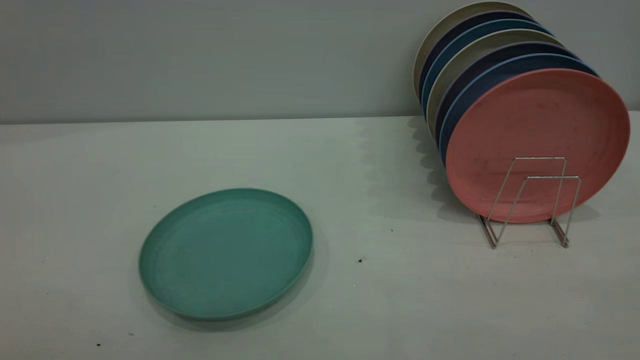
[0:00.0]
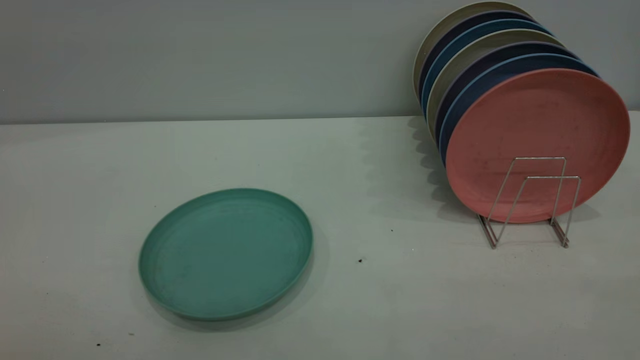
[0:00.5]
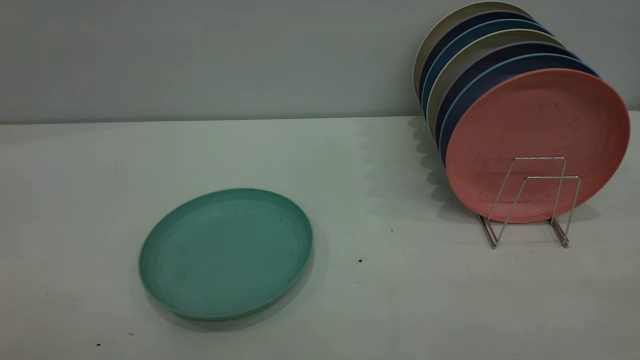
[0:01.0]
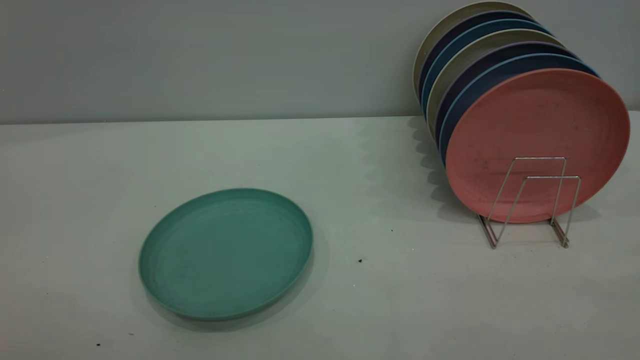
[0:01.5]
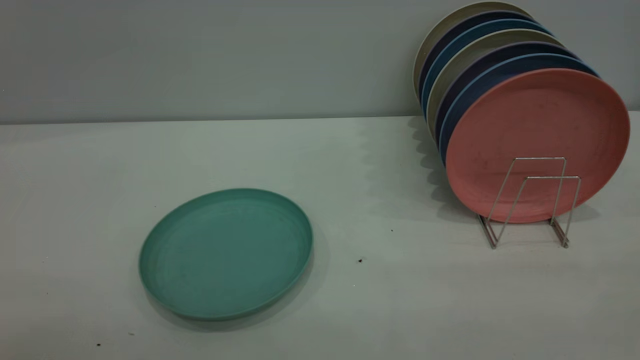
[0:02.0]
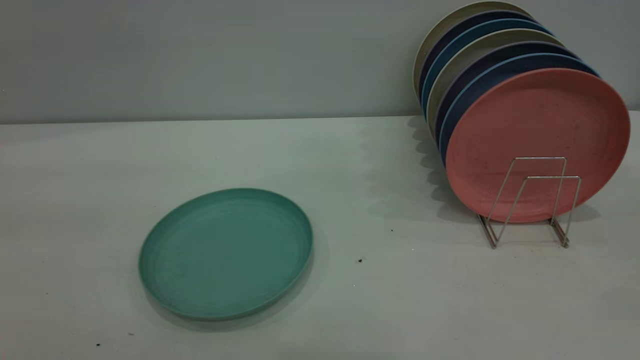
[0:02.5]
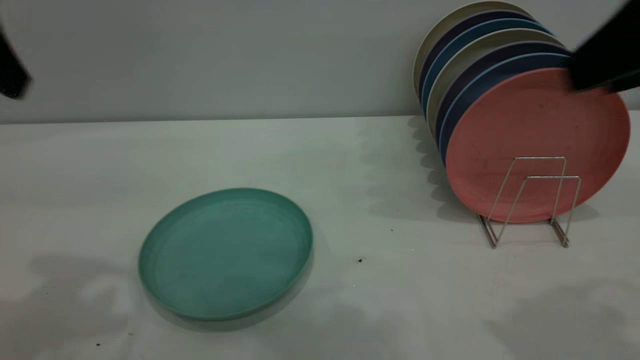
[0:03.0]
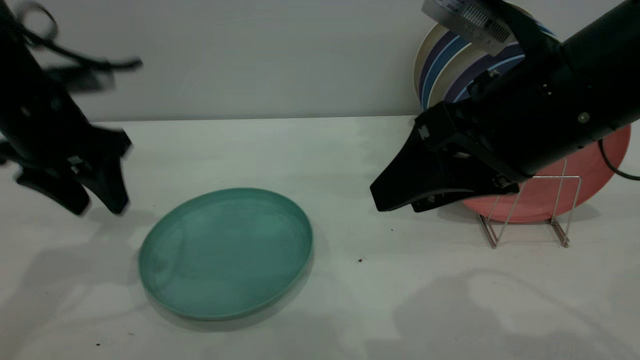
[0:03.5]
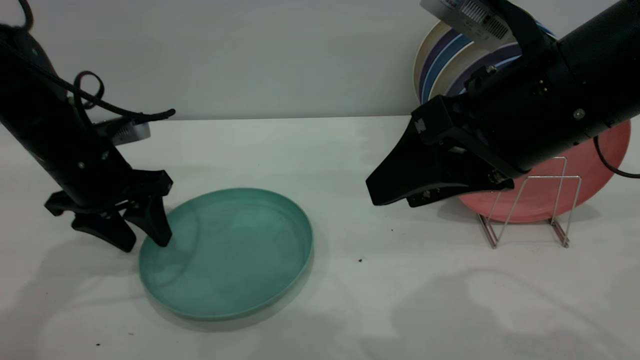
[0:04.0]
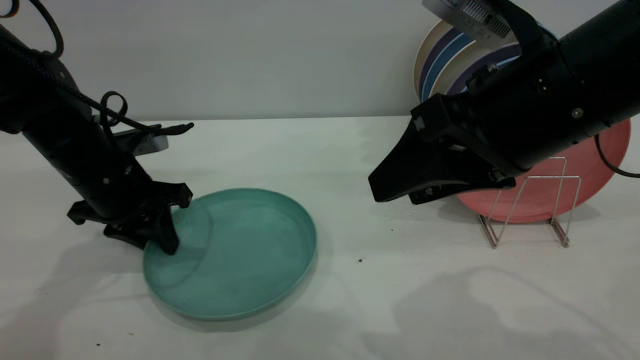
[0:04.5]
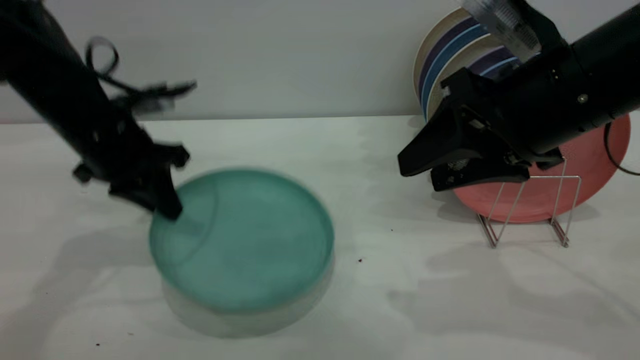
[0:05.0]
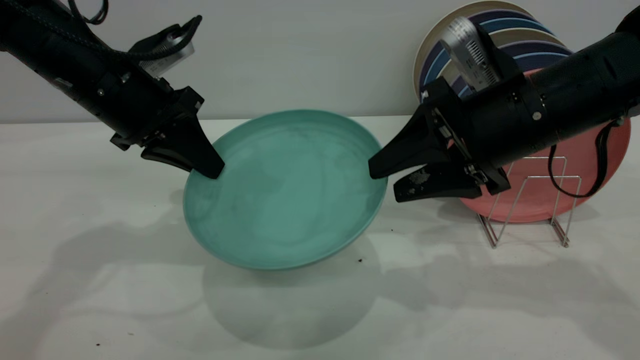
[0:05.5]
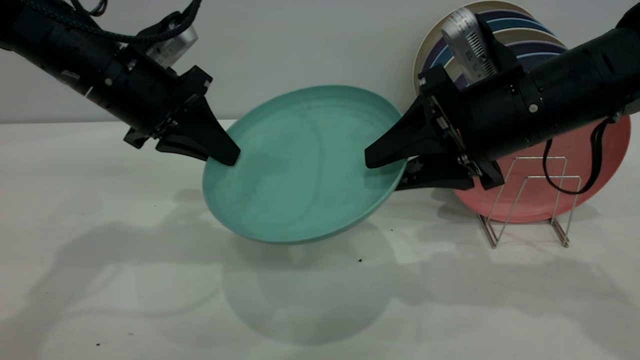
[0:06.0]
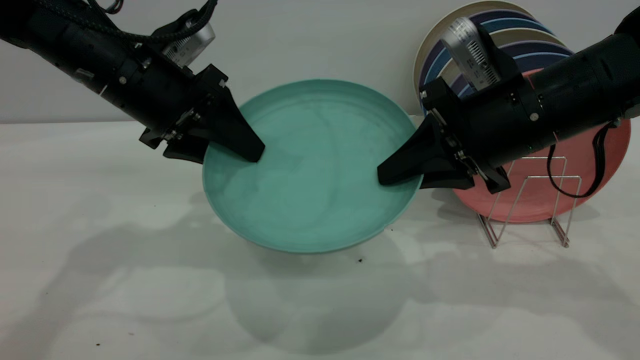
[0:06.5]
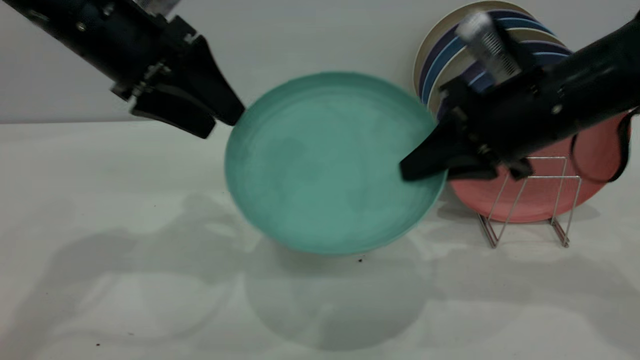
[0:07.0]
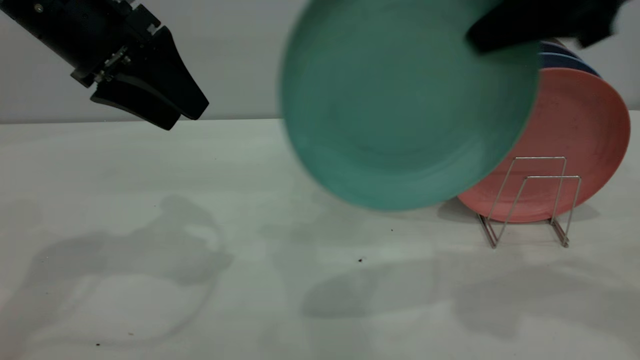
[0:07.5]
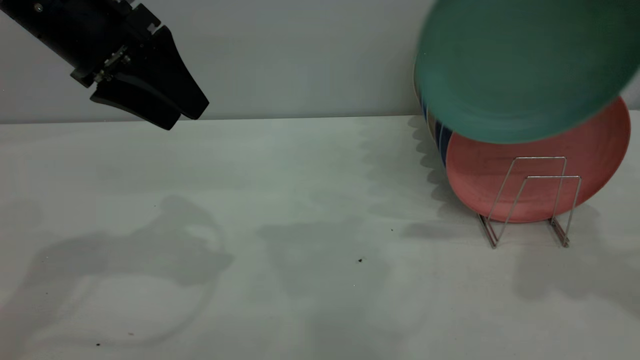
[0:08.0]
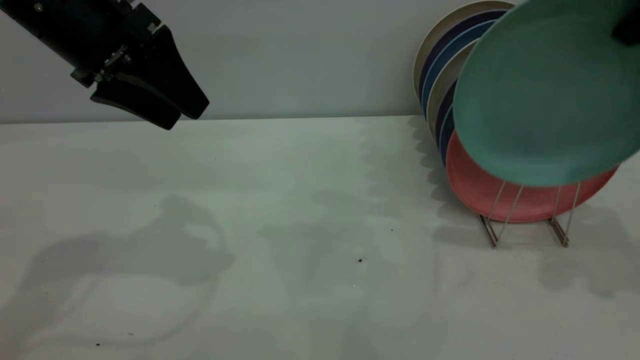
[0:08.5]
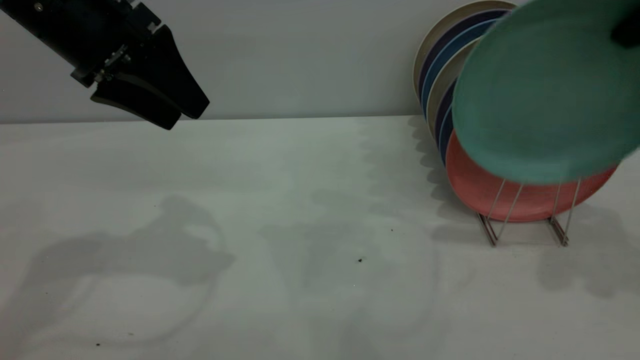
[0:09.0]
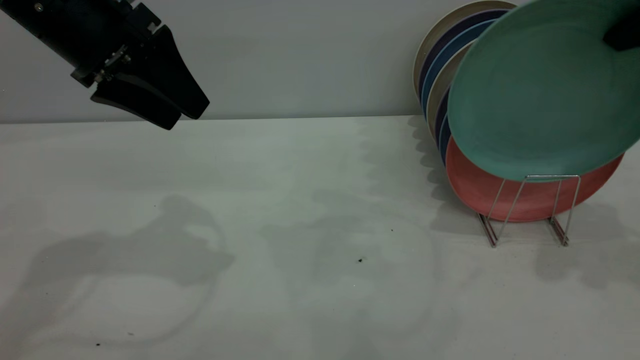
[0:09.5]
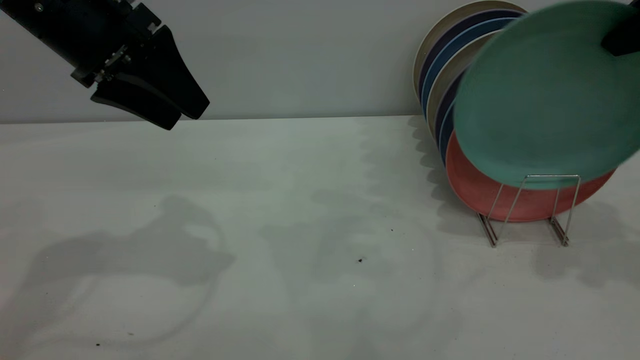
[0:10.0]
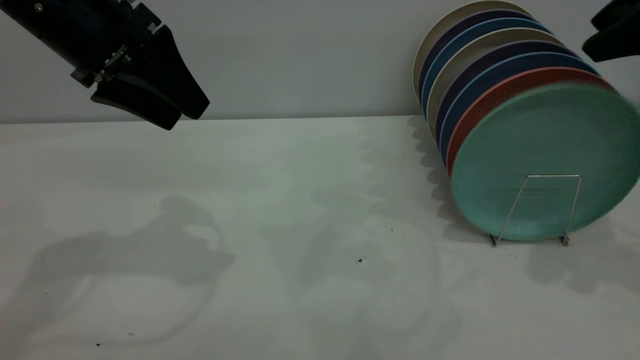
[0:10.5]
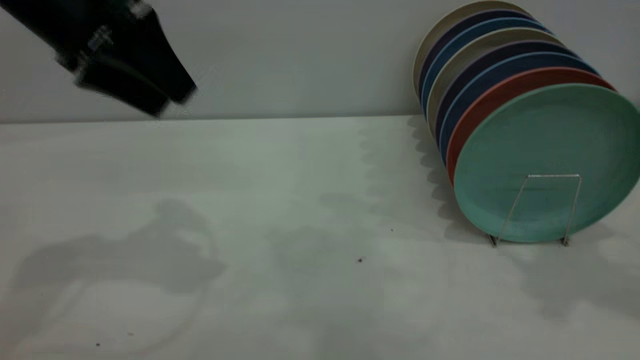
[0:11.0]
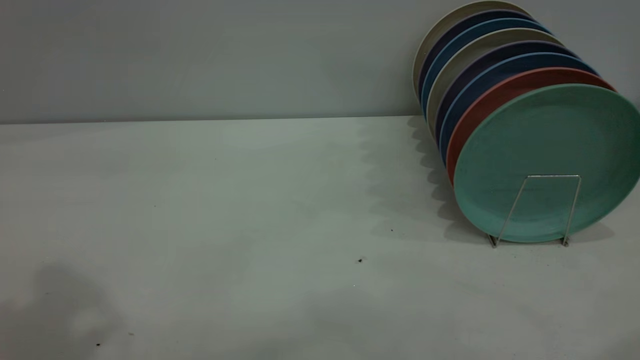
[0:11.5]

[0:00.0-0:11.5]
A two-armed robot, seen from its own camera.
Task of the whole recording: the left gripper grasp the green plate, the left gripper pass the green plate to the right gripper, and the right gripper place the green plate on the plate rack.
Step, 0:00.0 to 0:05.0: Pick up the plate with the left gripper.
Step, 0:05.5 to 0:07.0: Pass the plate from the left gripper to the right gripper.
Step, 0:07.5 to 0:10.5: Place the plate on the shelf.
0:02.0 to 0:04.0: The left gripper travels forward and downward by roughly 50 cm. The right gripper shifts approximately 30 cm forward, to the left and downward.
0:04.0 to 0:06.0: The right gripper goes approximately 10 cm forward and downward. The left gripper shifts roughly 10 cm upward and to the right, and closes.
0:06.0 to 0:07.5: The right gripper moves upward, about 15 cm, and closes its fingers, while the left gripper shifts some 5 cm upward, and opens.
0:07.5 to 0:09.5: The right gripper heads to the right, covering about 10 cm.
0:09.5 to 0:11.5: The right gripper travels backward and upward by approximately 20 cm, and opens; the left gripper heads upward and backward, covering roughly 25 cm.
